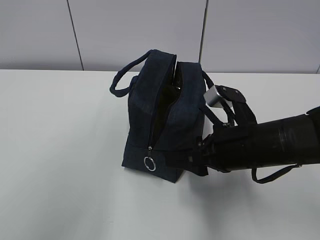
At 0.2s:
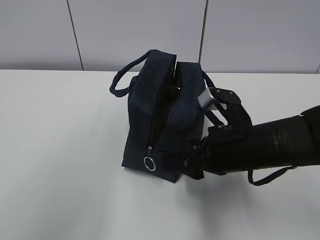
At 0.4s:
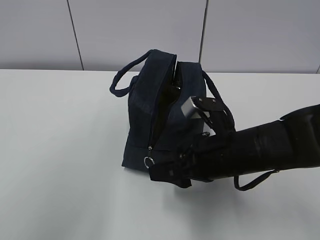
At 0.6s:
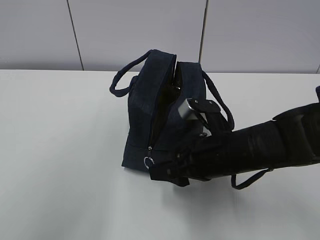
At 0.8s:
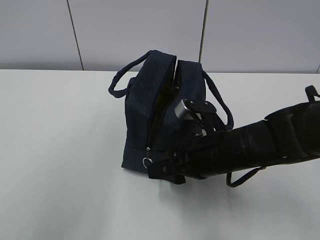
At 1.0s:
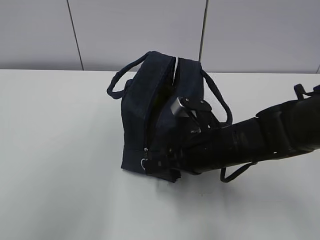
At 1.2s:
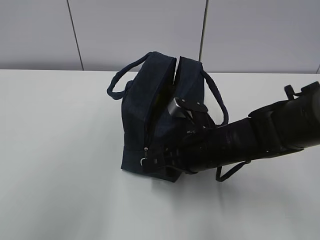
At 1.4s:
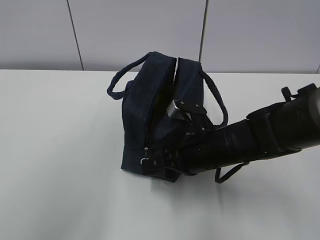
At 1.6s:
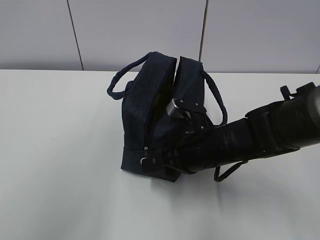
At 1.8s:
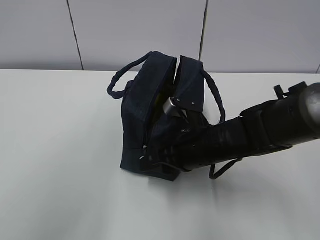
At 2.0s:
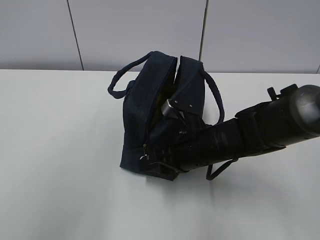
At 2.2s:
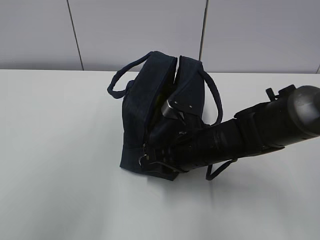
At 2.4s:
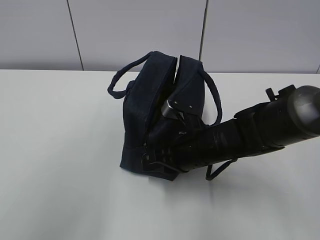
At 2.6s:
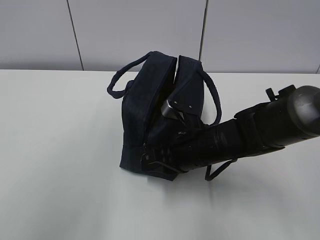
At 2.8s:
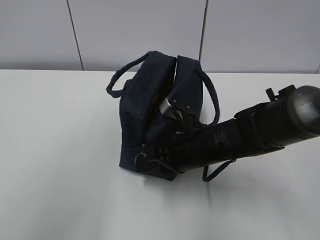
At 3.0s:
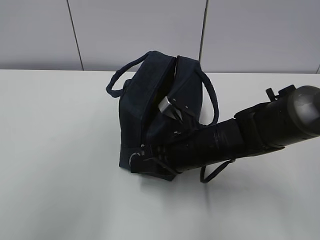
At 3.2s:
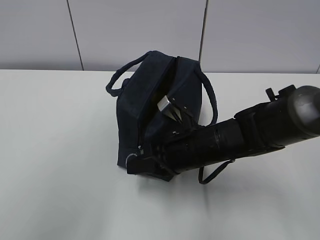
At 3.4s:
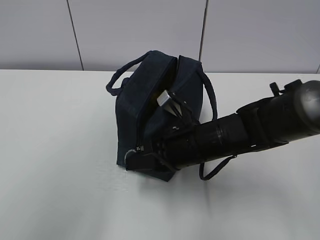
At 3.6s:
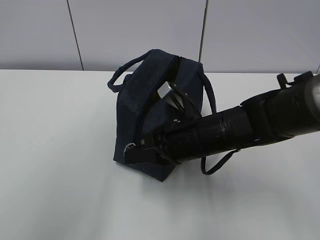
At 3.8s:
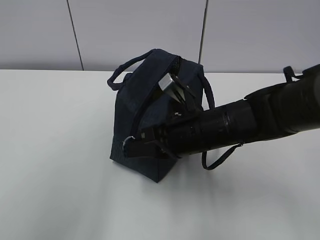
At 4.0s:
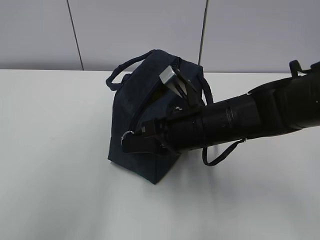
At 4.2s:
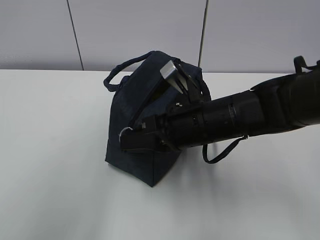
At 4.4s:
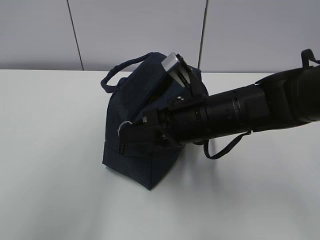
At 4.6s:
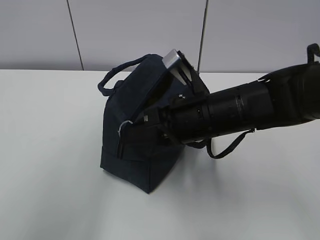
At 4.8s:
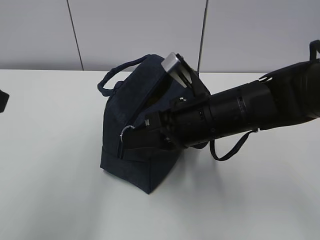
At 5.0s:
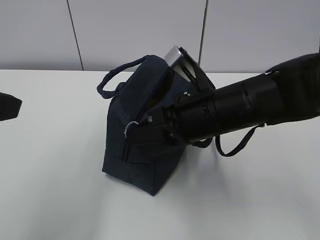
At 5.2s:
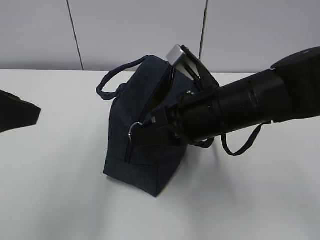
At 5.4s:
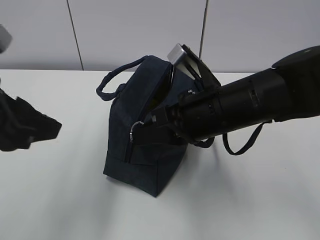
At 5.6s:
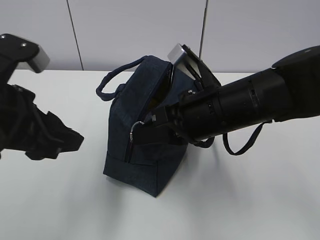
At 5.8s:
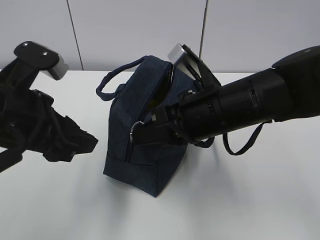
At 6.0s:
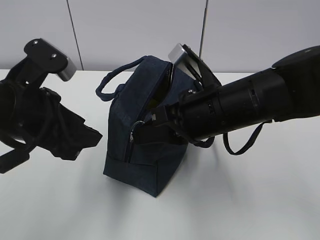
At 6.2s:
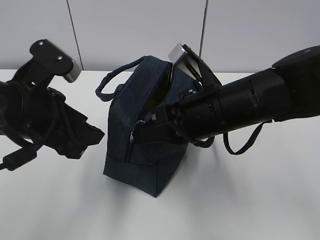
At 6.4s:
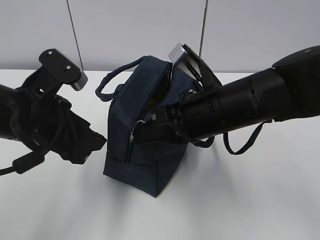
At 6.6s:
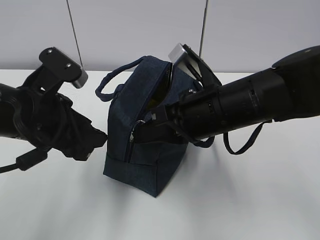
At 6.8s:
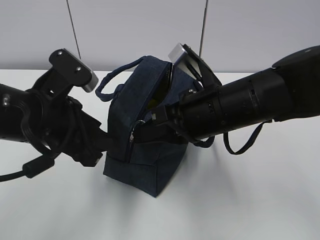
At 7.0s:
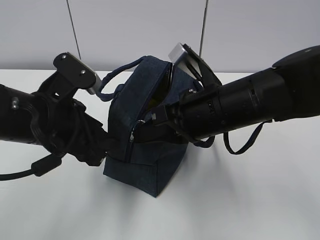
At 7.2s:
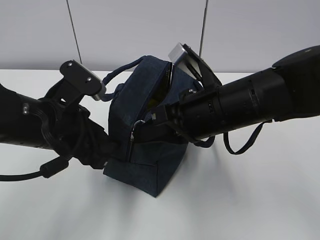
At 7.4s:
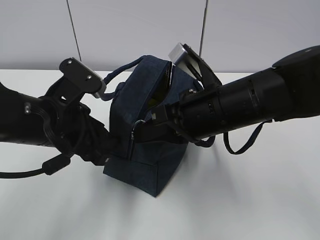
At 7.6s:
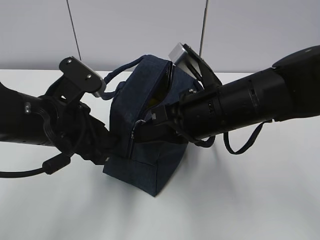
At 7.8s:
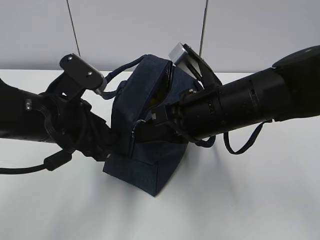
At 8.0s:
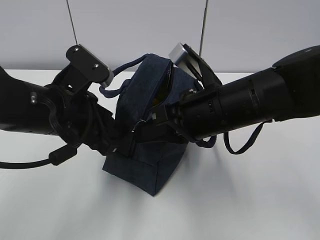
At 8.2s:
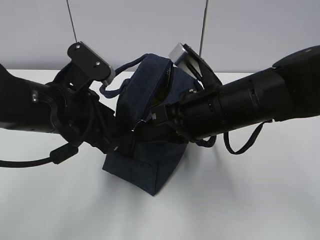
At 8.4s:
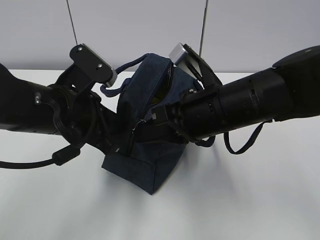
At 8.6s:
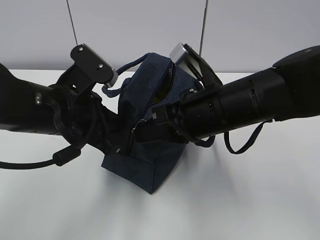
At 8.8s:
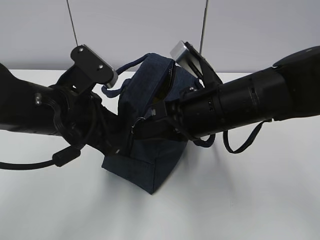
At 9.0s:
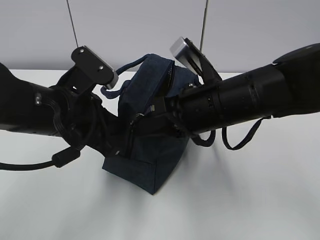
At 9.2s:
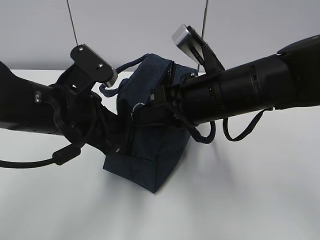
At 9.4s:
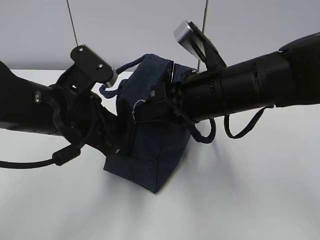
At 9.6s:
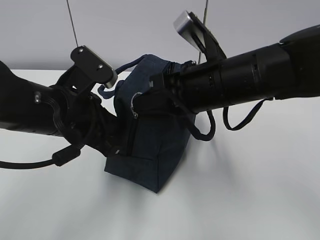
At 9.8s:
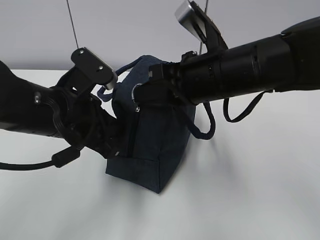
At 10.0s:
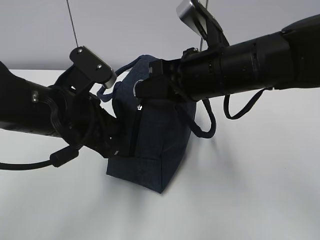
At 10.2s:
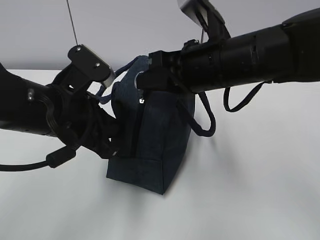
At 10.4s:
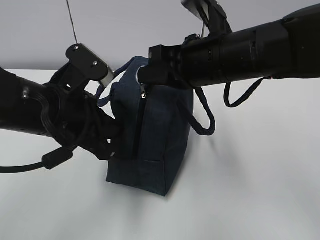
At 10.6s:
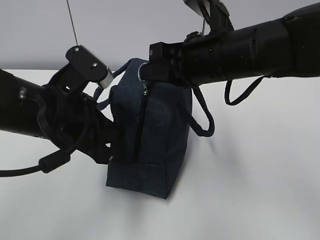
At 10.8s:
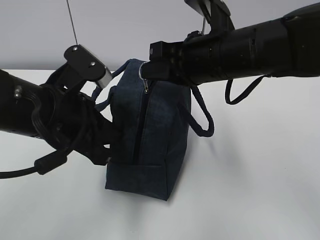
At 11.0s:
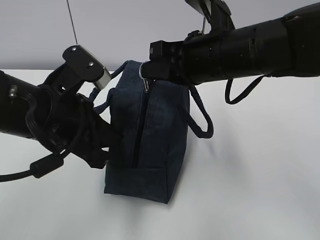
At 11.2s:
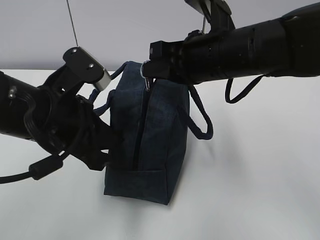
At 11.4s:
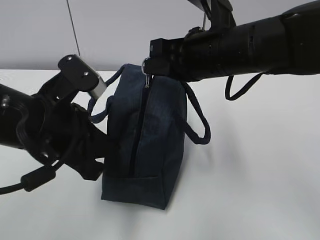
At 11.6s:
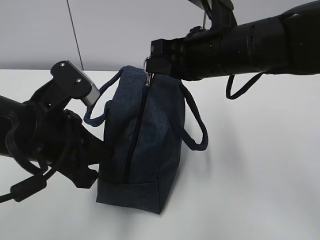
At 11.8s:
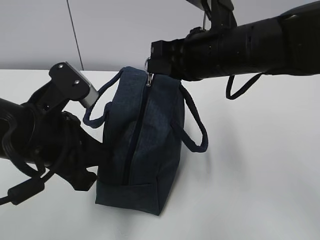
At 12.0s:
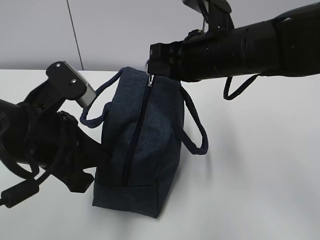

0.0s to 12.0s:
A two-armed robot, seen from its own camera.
Step, 3.8s to 8.2s: Pull the zipper with your right hand.
Step, 8.6s to 10.4s: Grab the lunch bag with your left hand.
0.0s to 1.6s: The right gripper changes place by approximately 10 cm.
1.6s to 3.0s: The right gripper closes up.
3.0s to 4.4s: The right gripper heads upward, covering approximately 10 cm.
4.4s to 6.0s: The left gripper goes some 20 cm downward, forward and to the right.
6.0s to 7.6s: The left gripper ends up roughly 5 cm from where it was.
7.6s to 9.0s: The left gripper closes.
9.0s to 10.4s: The right gripper changes place by roughly 5 cm.

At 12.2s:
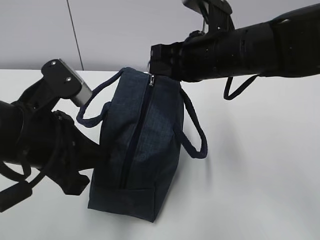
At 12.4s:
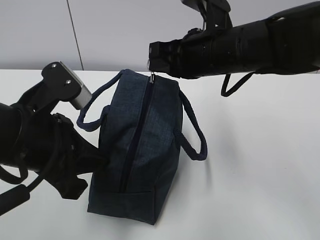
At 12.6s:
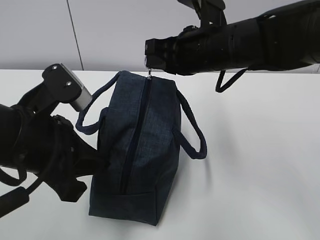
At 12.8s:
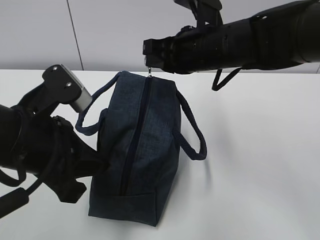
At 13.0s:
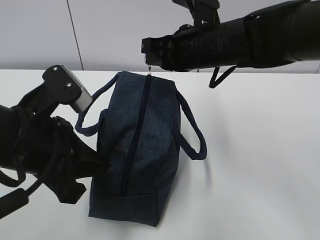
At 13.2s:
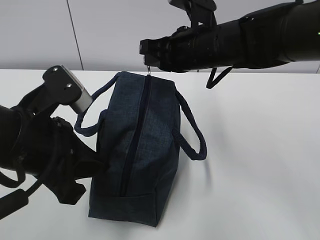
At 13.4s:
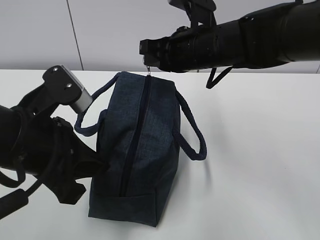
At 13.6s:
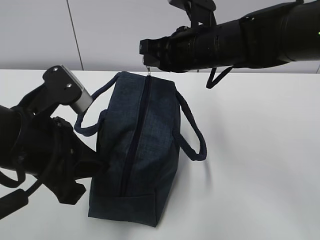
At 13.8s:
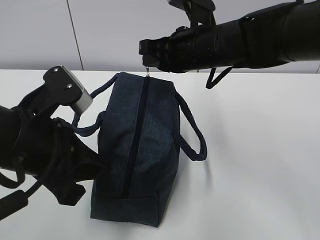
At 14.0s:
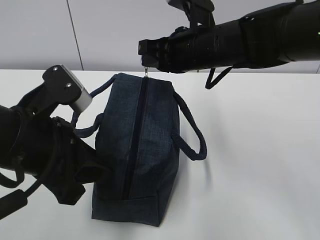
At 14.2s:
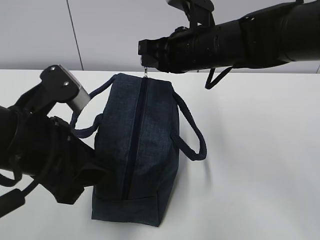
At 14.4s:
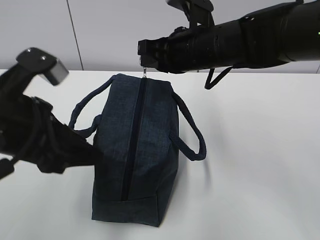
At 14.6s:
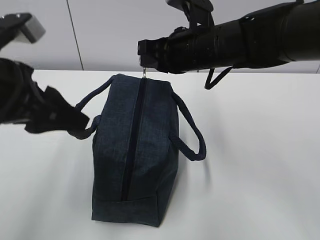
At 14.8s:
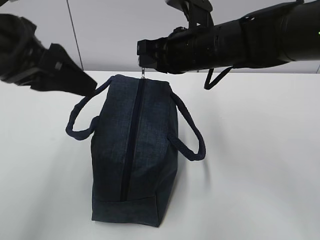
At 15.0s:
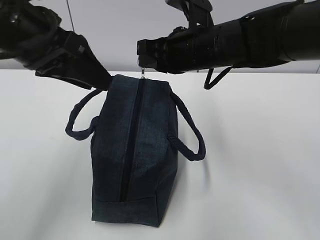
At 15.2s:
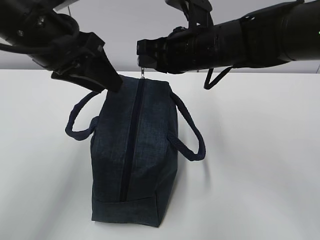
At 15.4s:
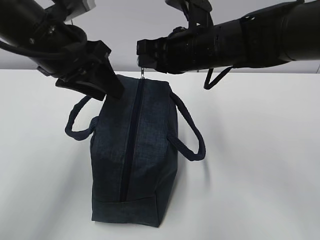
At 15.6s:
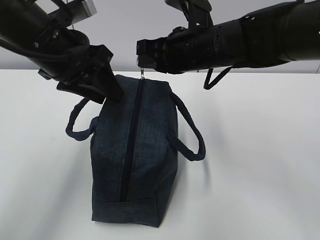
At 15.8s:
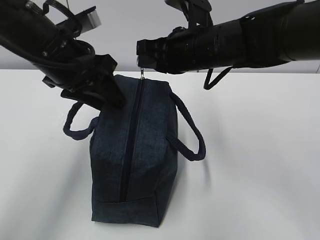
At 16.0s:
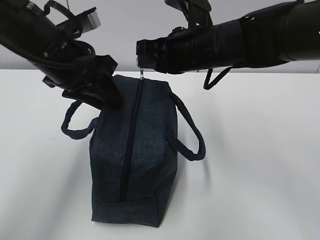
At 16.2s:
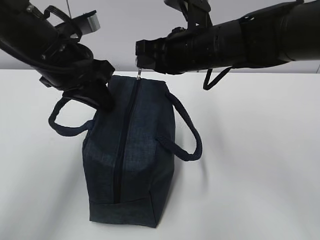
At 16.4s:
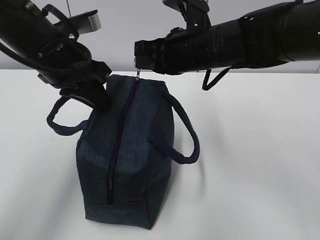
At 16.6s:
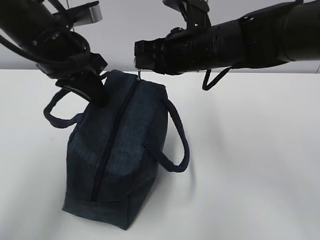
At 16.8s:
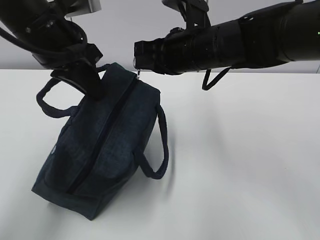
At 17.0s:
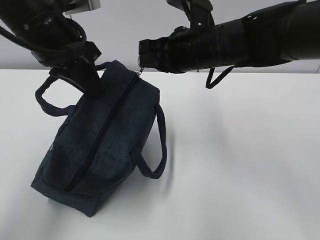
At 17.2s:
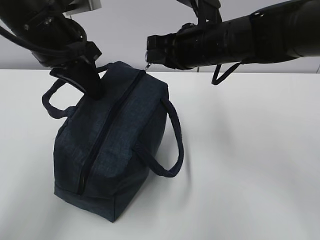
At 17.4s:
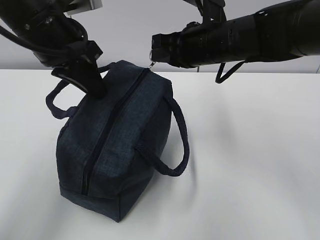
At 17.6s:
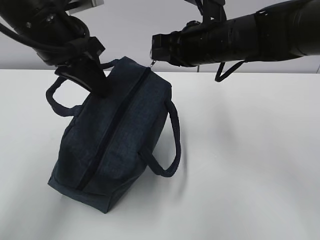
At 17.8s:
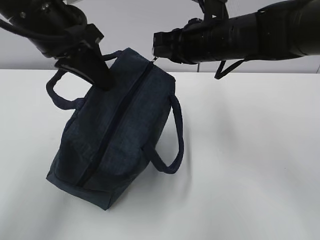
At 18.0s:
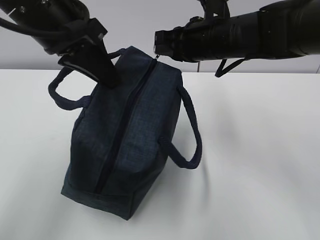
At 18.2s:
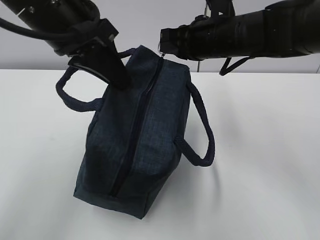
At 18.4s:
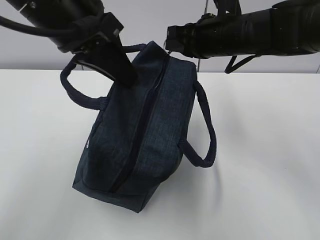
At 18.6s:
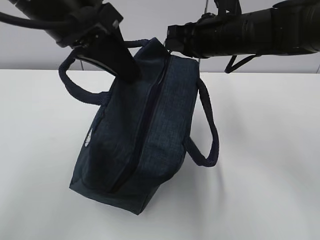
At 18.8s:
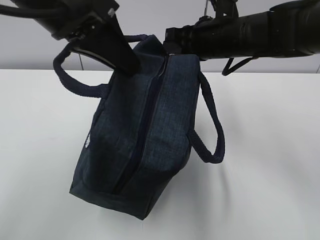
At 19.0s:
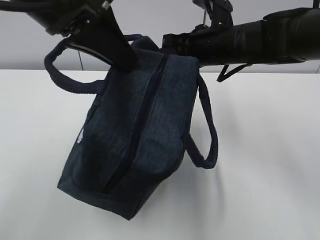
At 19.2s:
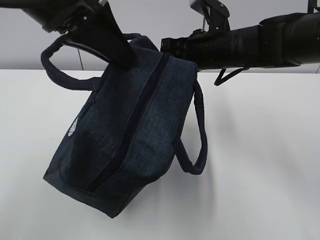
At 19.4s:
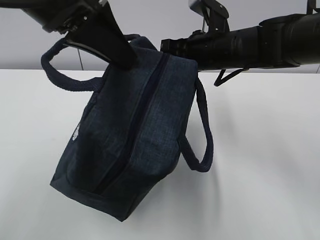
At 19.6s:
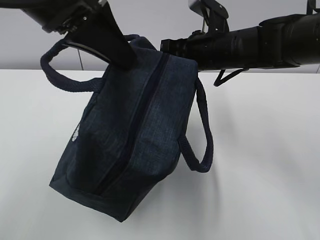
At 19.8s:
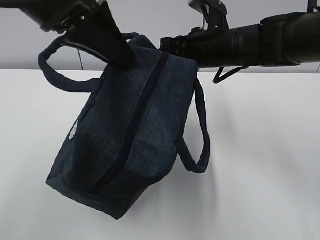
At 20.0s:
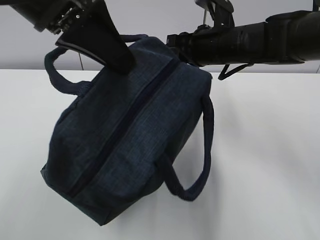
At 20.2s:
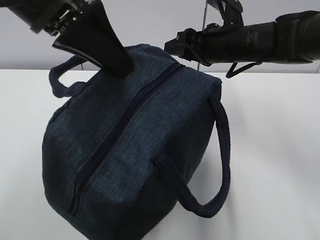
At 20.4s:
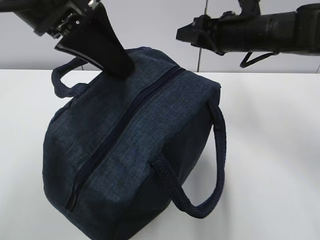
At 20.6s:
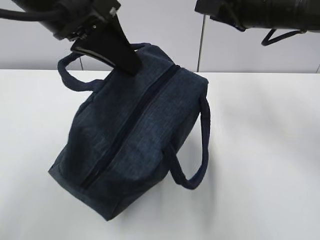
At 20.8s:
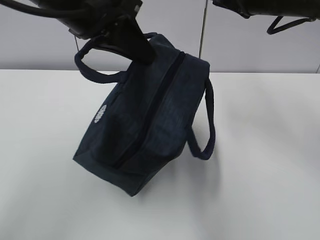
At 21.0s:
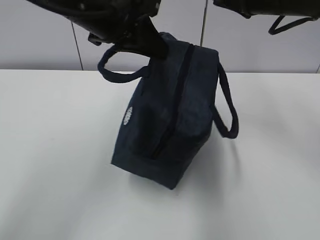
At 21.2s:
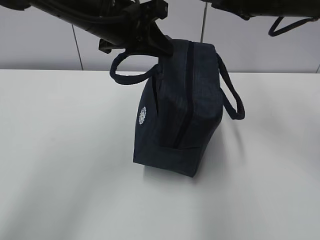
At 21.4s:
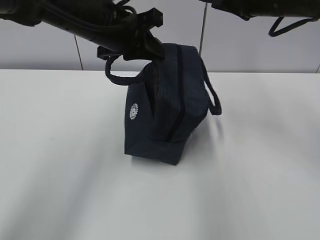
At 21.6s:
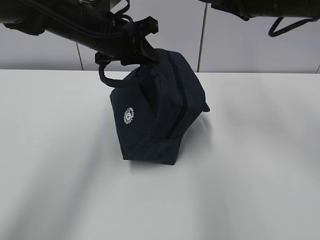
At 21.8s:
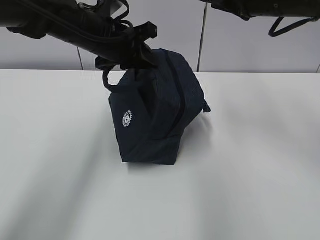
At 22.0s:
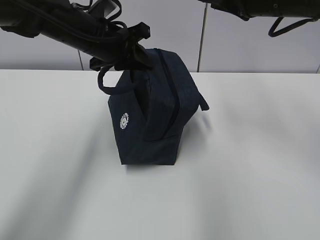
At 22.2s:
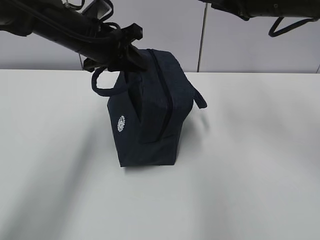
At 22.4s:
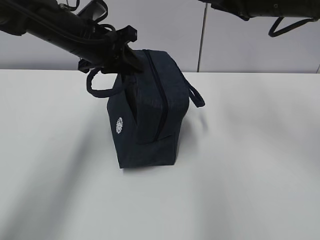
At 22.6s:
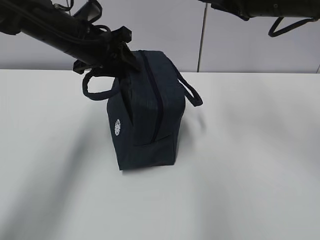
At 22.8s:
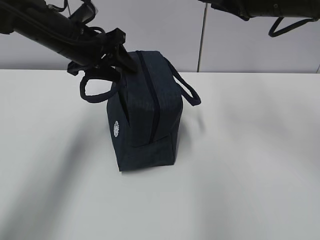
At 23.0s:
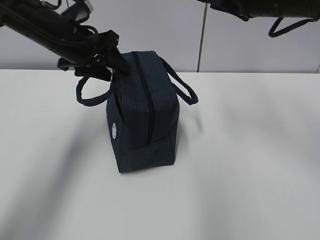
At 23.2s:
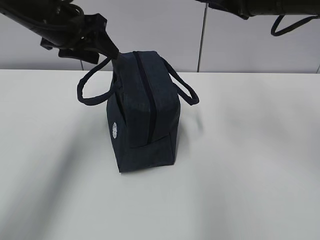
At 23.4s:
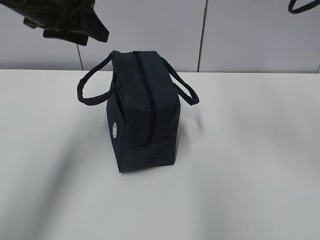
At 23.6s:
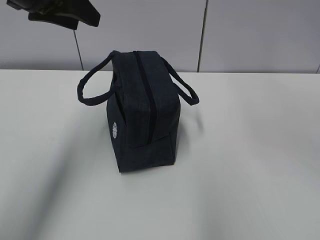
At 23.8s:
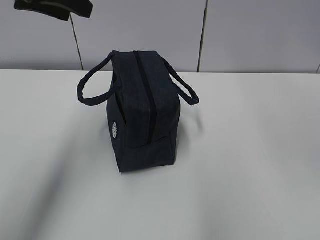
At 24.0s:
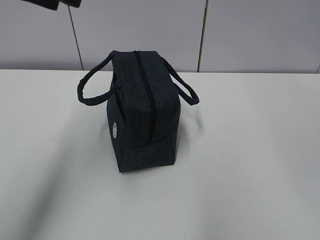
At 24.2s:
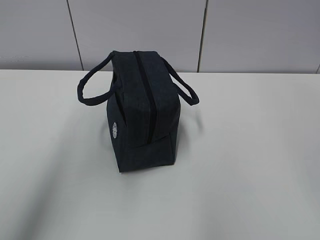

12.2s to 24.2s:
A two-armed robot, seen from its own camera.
12.2s to 13.8s: The grippers stay close to where they were, moving slightly.
13.8s to 15.2s: The left gripper travels forward and upward by some 15 cm, and opens up.
15.2s to 16.6s: The left gripper closes up.
16.6s to 18.2s: The left gripper changes place by roughly 5 cm.
18.2s to 19.8s: The left gripper ends up roughly 5 cm from where it was.
19.8s to 21.2s: The left gripper shifts about 10 cm forward and downward. Meanwhile the right gripper goes roughly 10 cm upward and to the right, and opens its fingers.
21.2s to 22.6s: The left gripper travels downward, to the left and forward by about 10 cm, and opens up.
22.6s to 24.2s: The left gripper is displaced upward and backward by some 25 cm. The right gripper shifts about 25 cm backward and upward.
